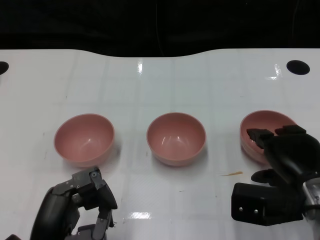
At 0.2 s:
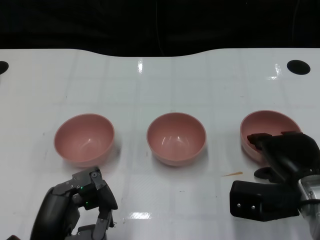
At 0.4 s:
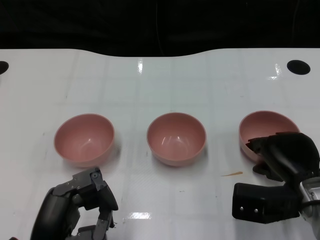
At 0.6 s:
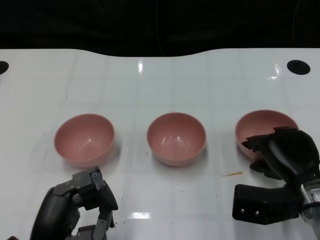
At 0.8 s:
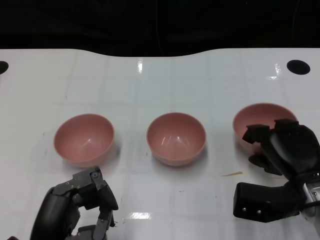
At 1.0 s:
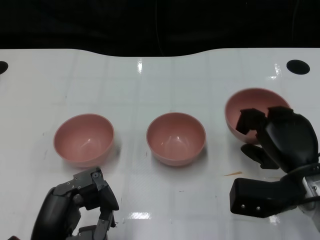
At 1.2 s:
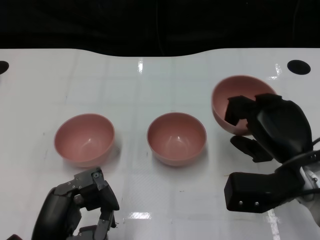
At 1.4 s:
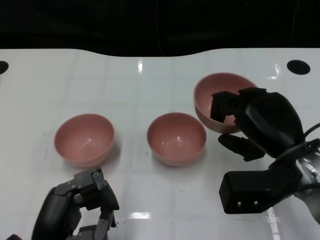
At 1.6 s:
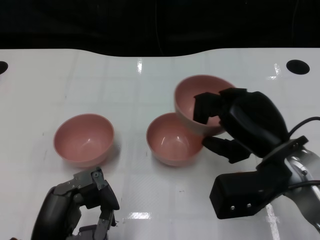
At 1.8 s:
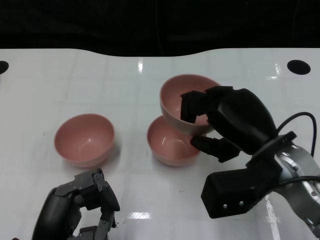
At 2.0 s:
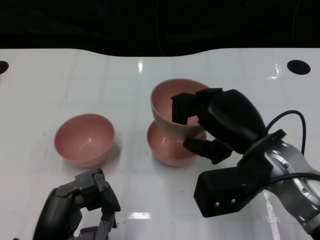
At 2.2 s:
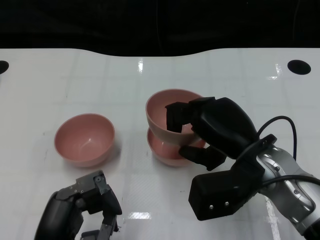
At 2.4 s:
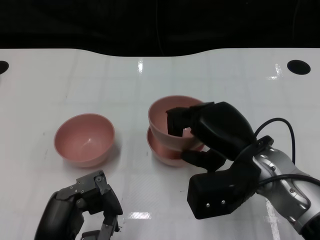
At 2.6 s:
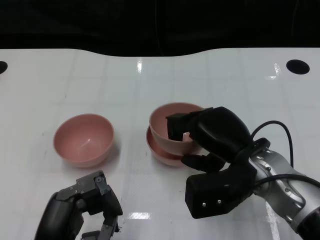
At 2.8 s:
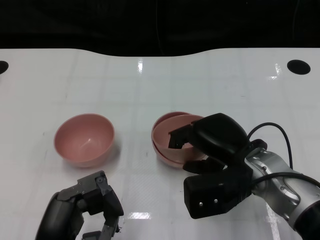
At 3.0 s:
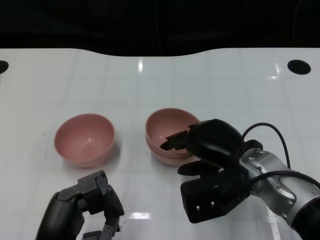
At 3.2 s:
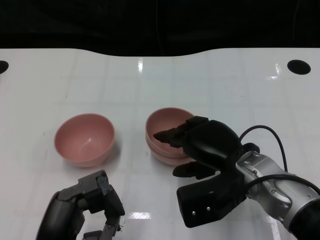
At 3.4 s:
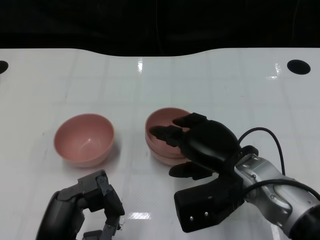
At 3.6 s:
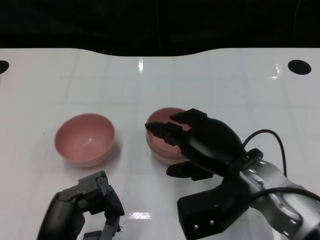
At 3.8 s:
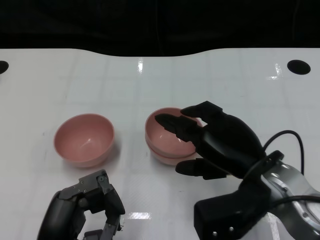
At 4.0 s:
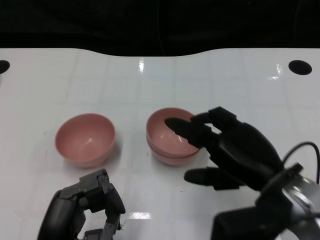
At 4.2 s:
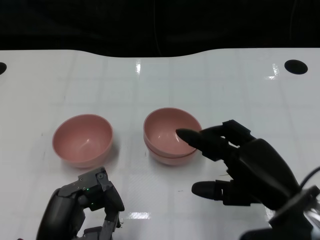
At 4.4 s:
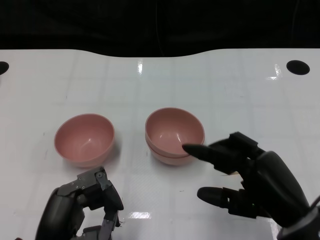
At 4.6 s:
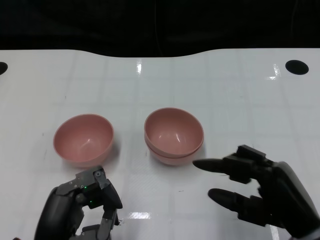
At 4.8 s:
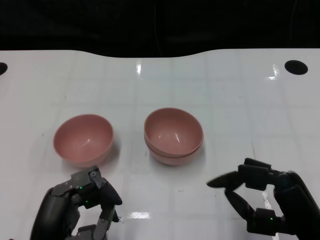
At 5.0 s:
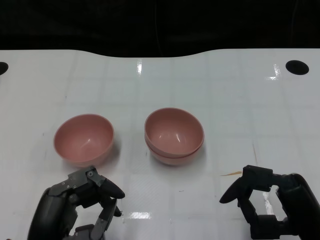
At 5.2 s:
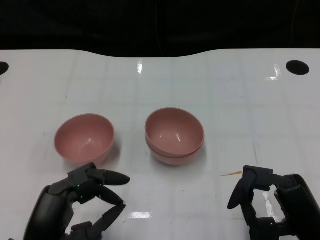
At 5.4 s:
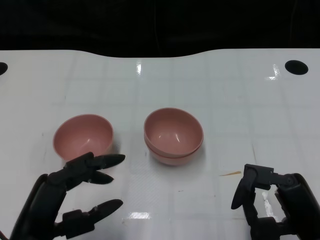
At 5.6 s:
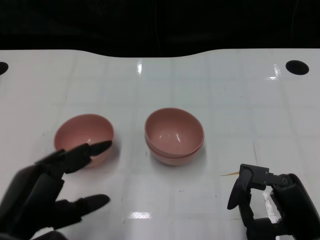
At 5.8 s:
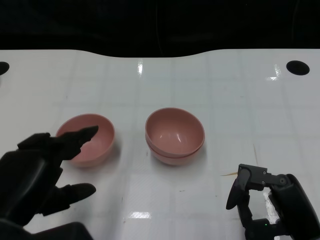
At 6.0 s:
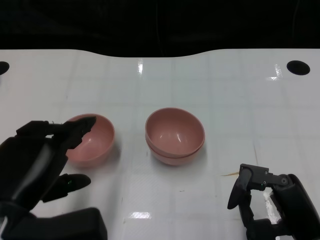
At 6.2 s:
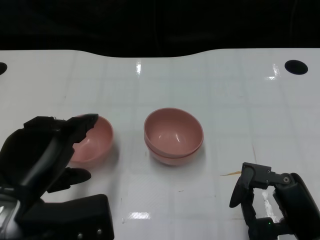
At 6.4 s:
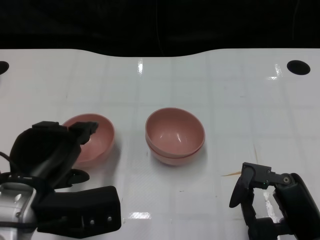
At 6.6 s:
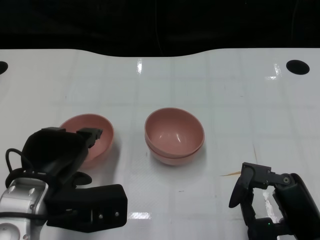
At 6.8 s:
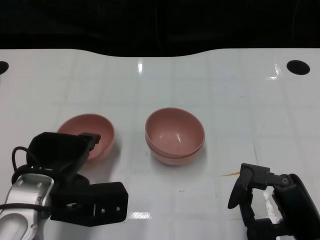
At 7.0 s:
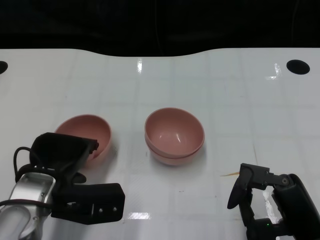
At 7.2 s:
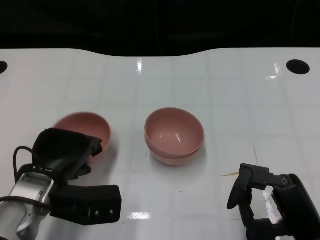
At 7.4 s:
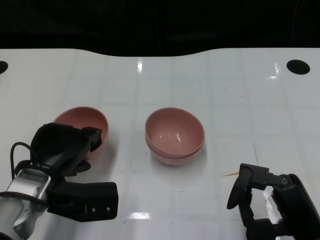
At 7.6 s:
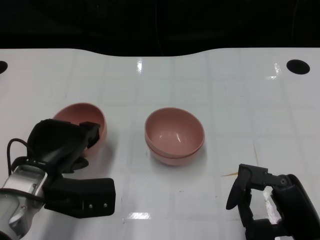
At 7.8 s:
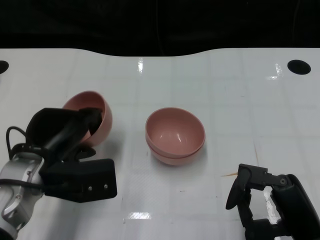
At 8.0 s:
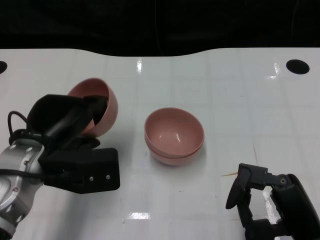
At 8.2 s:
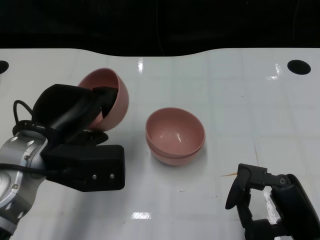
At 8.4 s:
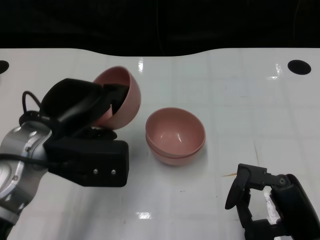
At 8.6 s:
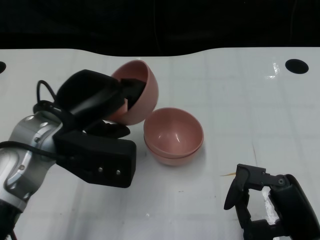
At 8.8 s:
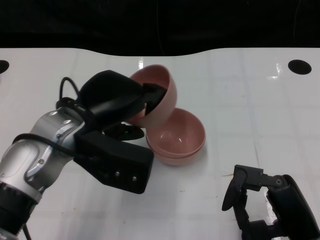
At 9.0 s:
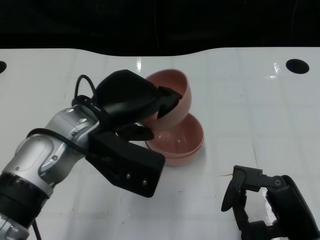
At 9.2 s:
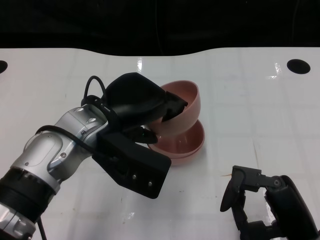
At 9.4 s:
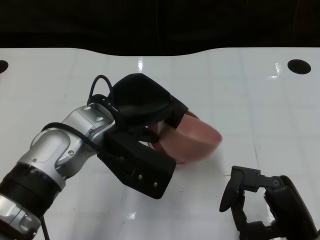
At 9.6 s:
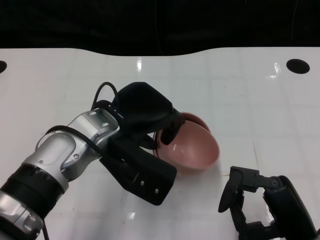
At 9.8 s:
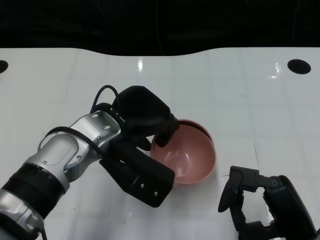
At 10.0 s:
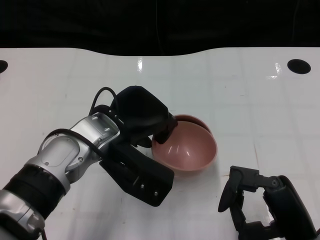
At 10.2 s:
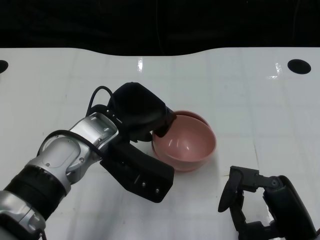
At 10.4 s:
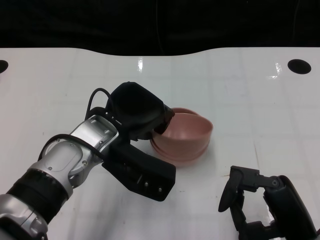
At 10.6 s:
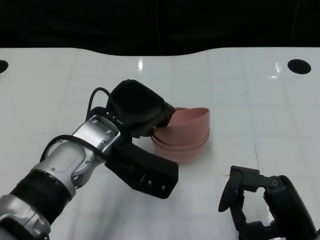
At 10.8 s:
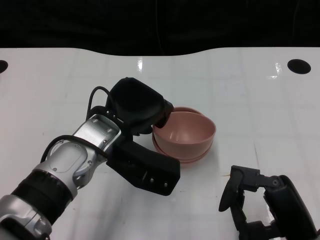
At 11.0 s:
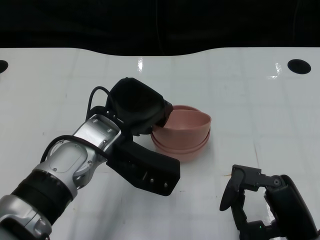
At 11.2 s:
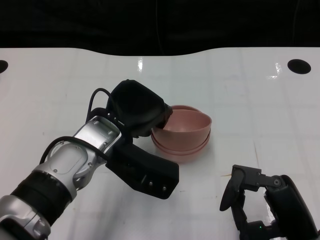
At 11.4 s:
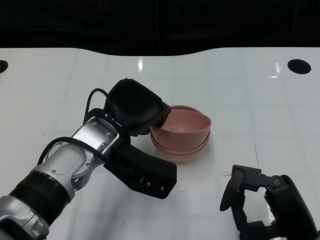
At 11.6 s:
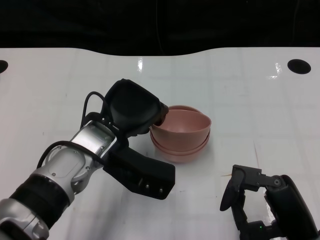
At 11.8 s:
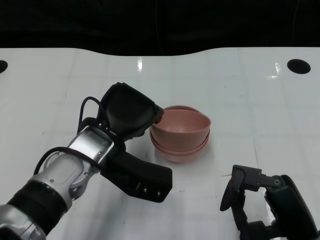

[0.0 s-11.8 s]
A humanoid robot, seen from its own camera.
Task of the whole recording: Pick up the bowl on one side of the table and place it on top of the middle bowl, then pick up the bowl on the other side of the table and place it on top of the middle bowls.
Step, 0.8 to 3.8 s: Place the bowl on the right onto the bowl in the middle with right gripper.
Step, 4.0 to 7.4 s: Grasp the bowl on the left with the left gripper.
0.0 to 1.4 s: The right hand goes some 5 cm upward.
1.4 to 3.0 s: The right hand goes roughly 5 cm to the left.
3.0 to 4.4 s: The right hand heads backward and to the right, covering about 10 cm.
4.4 to 6.0 s: The left hand travels upward by roughly 10 cm.
6.0 to 7.4 s: The left hand heads forward and downward, covering some 10 cm.
7.4 to 8.8 s: The left hand heads upward and to the right, covering roughly 10 cm.
8.8 to 10.4 s: The left hand moves some 5 cm.
10.4 to 11.8 s: There are only small adjustments of the hands.

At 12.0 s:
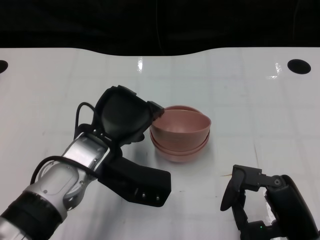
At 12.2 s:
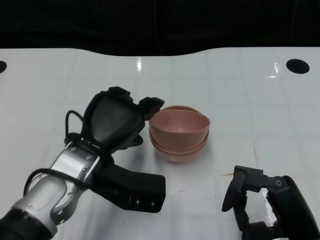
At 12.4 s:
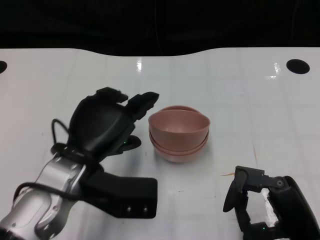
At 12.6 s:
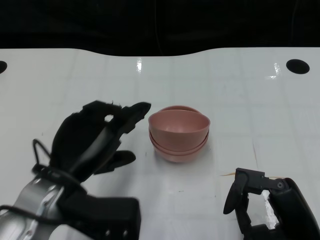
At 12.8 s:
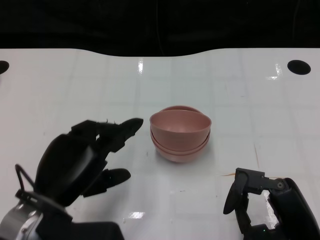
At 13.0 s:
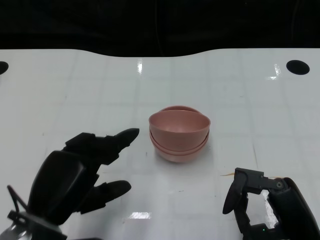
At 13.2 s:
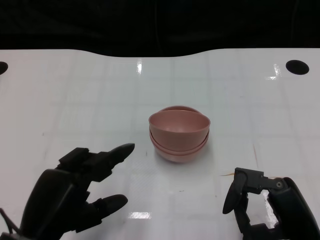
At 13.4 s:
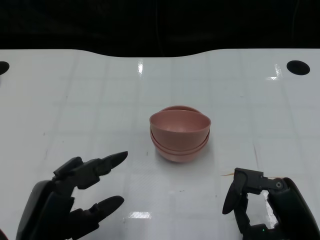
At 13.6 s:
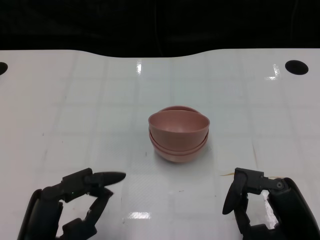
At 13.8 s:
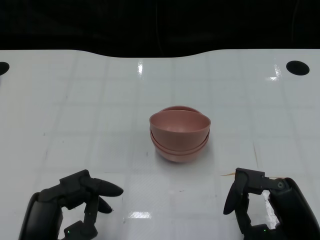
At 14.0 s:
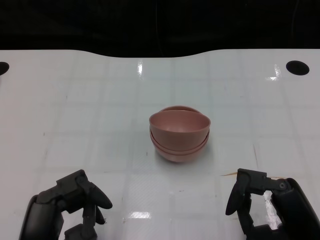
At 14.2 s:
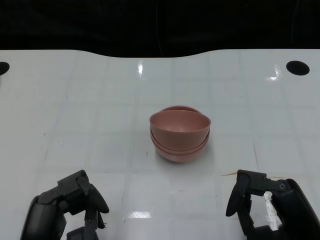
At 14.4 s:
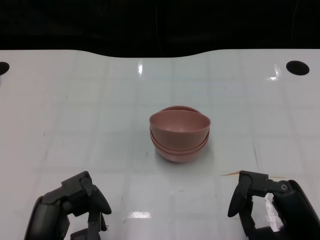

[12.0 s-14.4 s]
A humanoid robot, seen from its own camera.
Task of the whole recording: Pick up the bowl on one side of the table and place it on top of the middle bowl, then pick up the bowl on the other side of the table and place it on top of the middle bowls.
12.0 to 13.2 s: The left hand goes about 15 cm backward and to the left.

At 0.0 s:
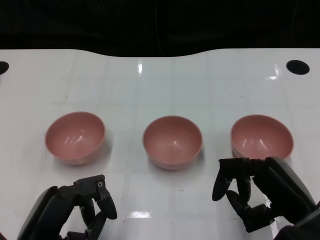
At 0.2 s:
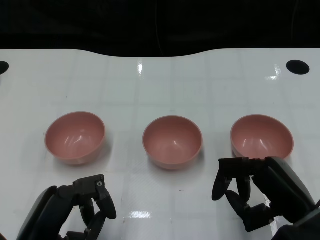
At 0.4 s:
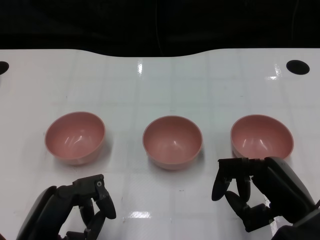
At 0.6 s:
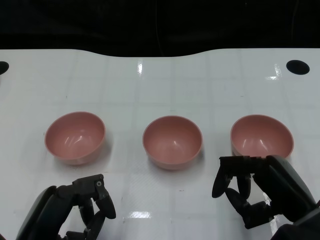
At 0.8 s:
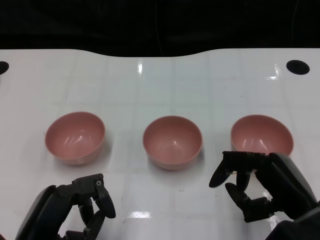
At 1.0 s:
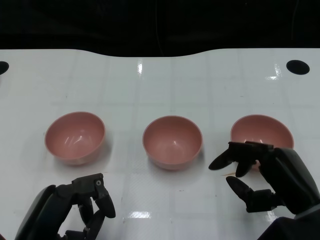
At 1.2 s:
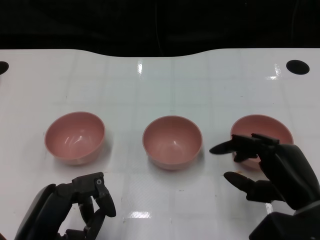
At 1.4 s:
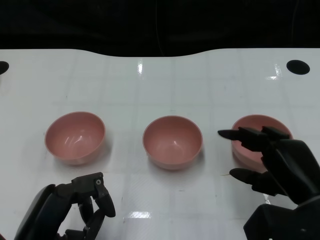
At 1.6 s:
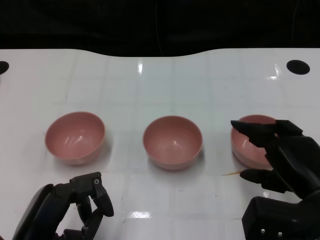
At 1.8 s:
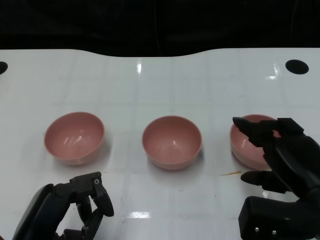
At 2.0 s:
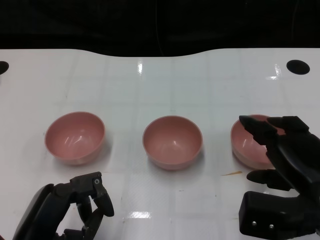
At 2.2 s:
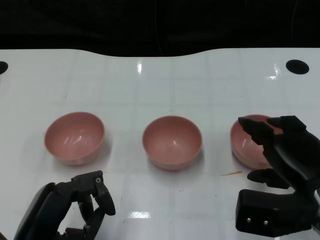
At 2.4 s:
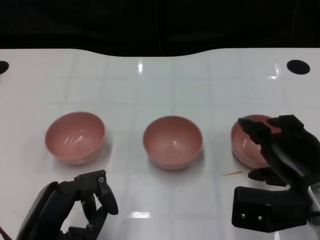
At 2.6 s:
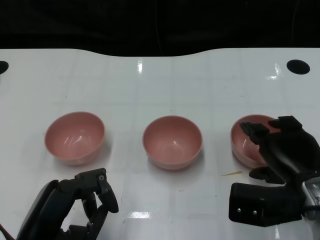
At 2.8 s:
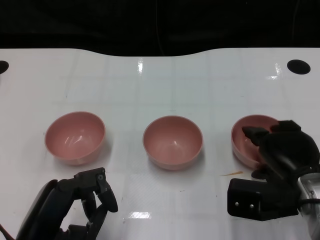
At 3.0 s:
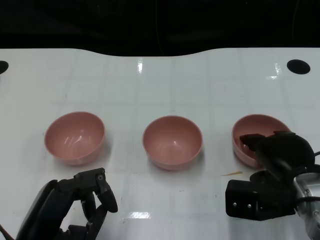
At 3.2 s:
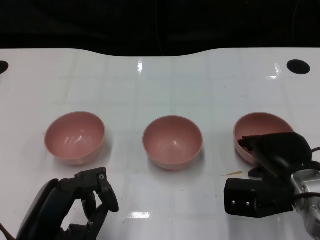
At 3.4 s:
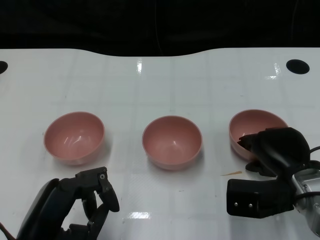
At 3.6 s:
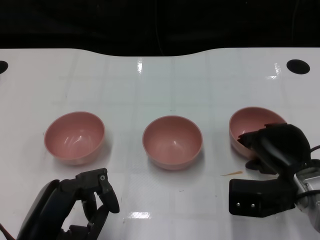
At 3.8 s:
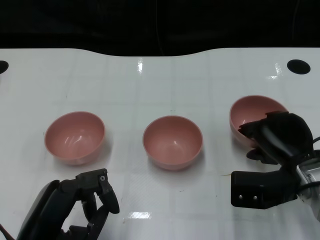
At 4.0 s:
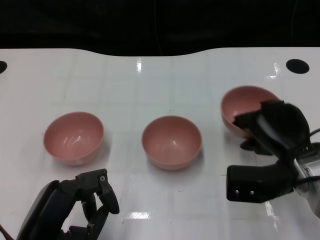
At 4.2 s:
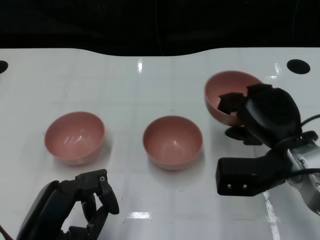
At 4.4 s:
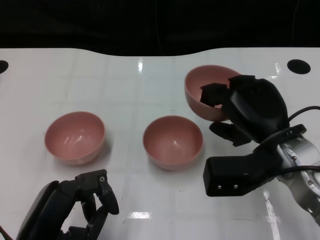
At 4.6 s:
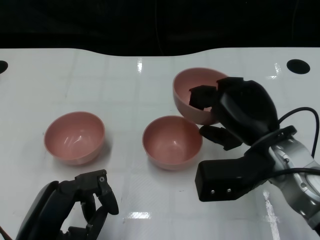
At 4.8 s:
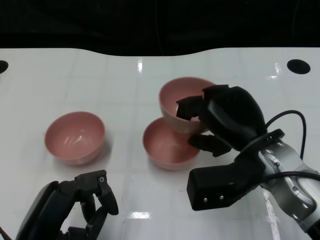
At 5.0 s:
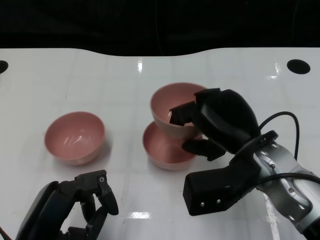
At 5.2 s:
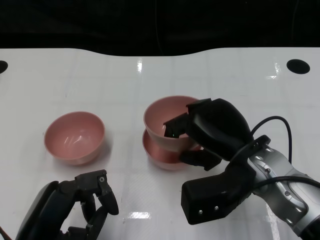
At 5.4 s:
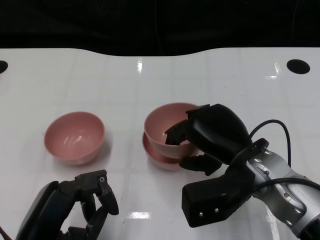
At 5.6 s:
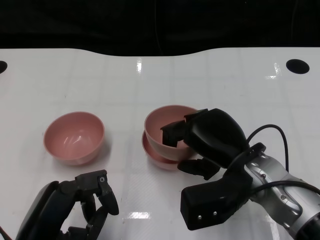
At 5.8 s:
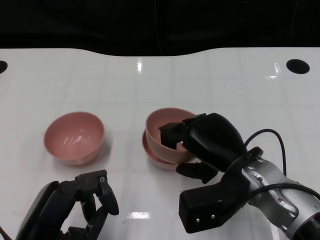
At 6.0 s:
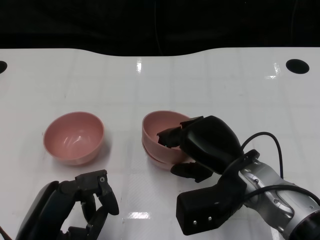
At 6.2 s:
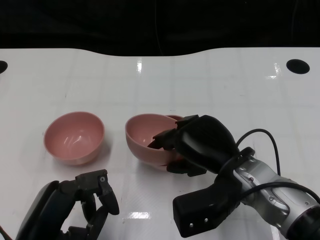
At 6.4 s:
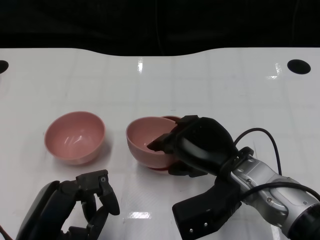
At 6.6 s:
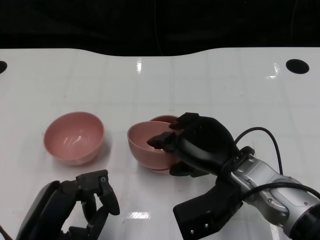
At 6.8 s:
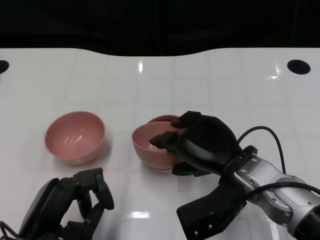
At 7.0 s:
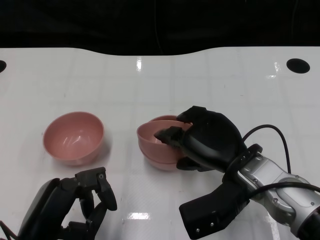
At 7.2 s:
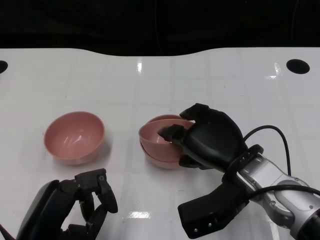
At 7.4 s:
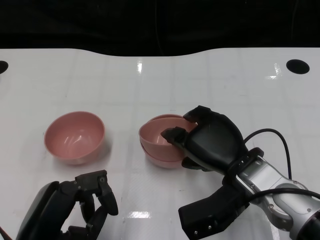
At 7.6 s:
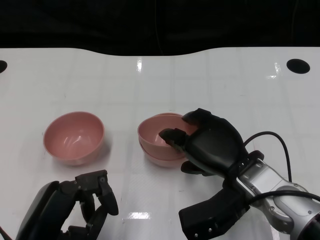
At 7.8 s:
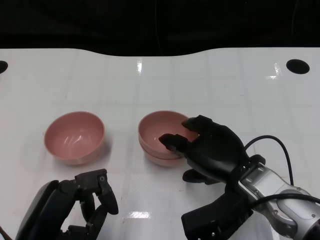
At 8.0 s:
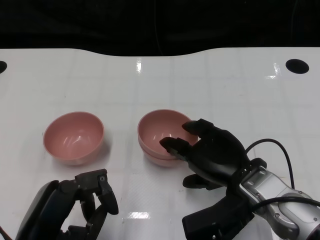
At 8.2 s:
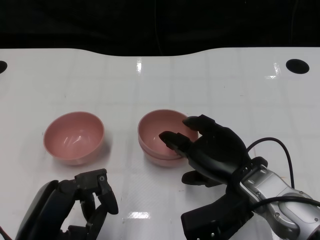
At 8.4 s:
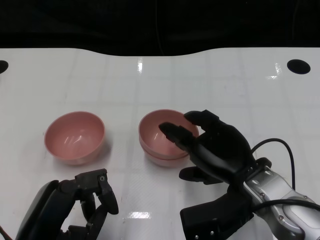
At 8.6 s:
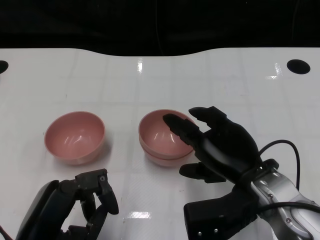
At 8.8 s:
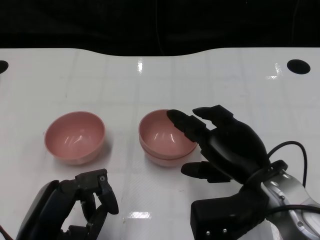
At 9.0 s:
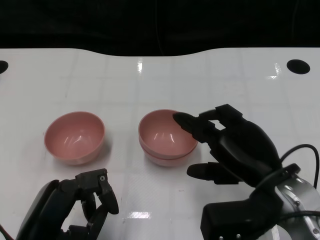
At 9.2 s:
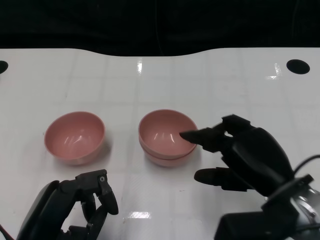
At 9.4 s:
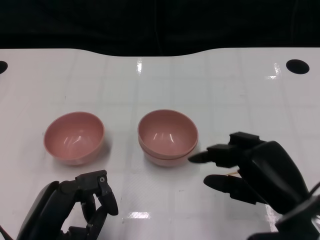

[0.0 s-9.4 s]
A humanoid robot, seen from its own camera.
Task of the whole recording: Pick up the bowl on one side of the table and place it on top of the middle bowl, then pick up the bowl on the other side of the table and place it on top of the middle bowls.
Step, 0.8 to 3.6 s: Grasp the bowl on the right with the right gripper.
Step, 3.8 to 8.6 s: Place the bowl on the right onto the bowl in the middle with right gripper.
1.6 to 3.2 s: The right hand heads forward, covering approximately 5 cm.
3.2 to 4.8 s: The right hand is displaced upward and to the left by approximately 10 cm.
7.8 to 9.4 s: The right hand heads to the right and backward, covering some 10 cm.
